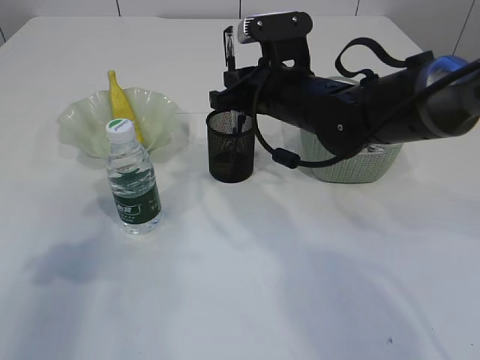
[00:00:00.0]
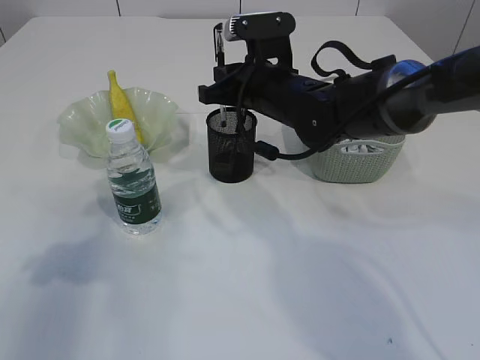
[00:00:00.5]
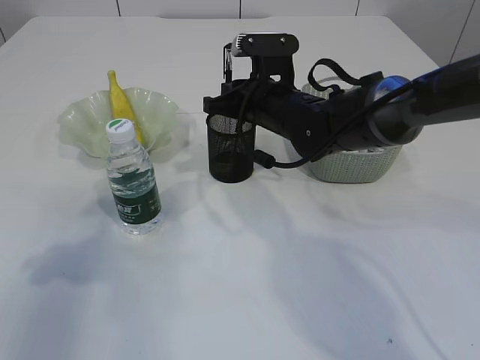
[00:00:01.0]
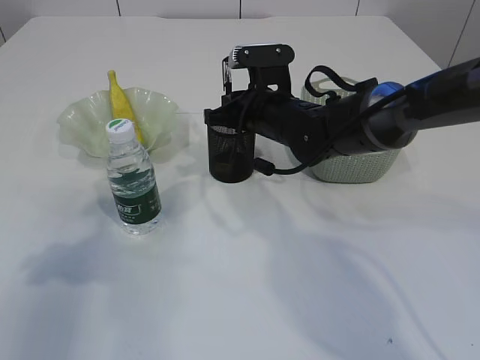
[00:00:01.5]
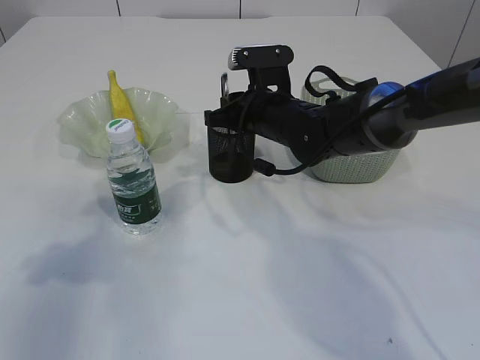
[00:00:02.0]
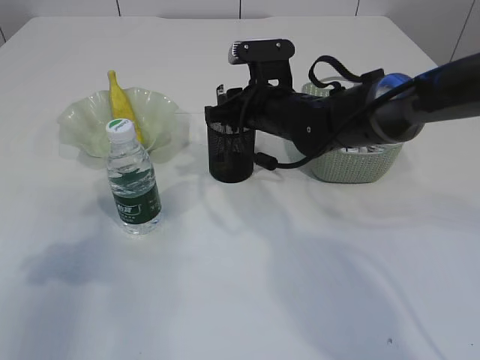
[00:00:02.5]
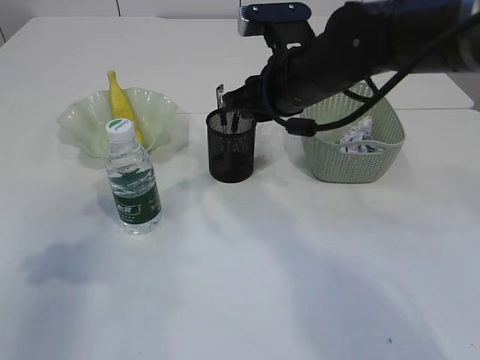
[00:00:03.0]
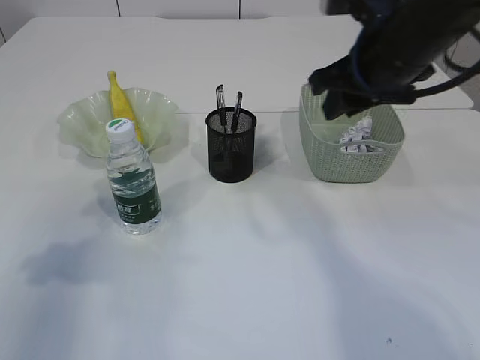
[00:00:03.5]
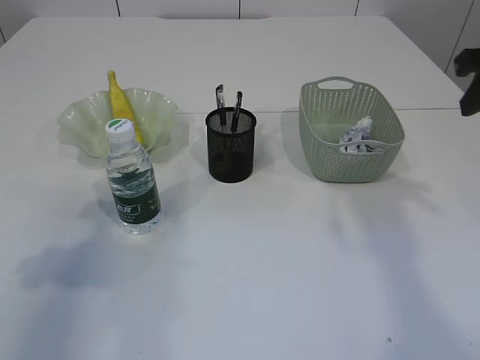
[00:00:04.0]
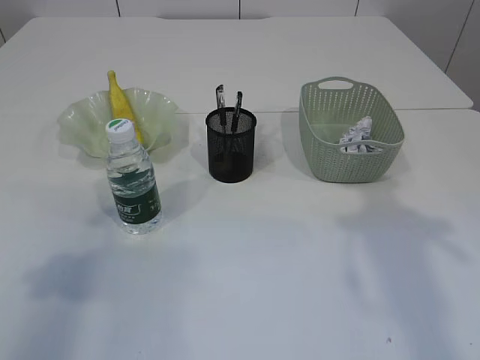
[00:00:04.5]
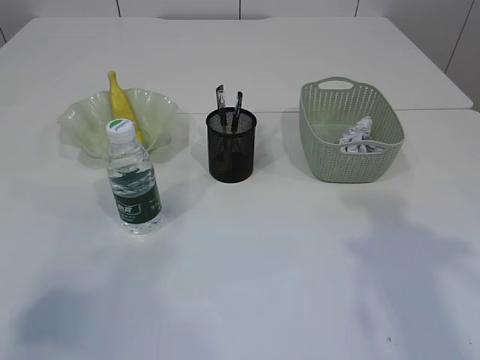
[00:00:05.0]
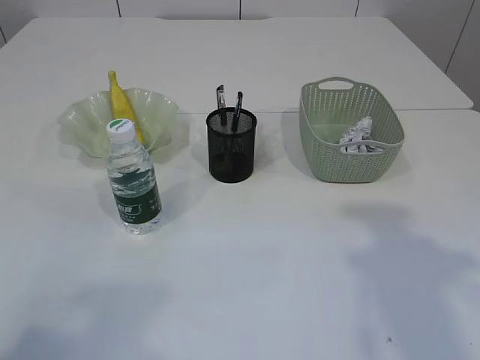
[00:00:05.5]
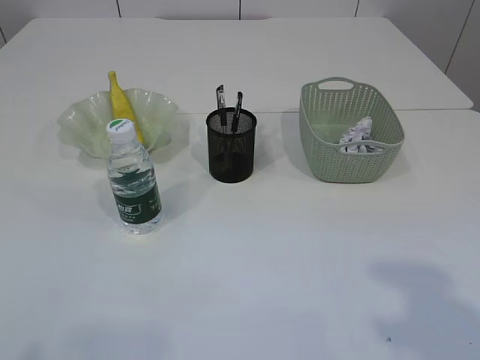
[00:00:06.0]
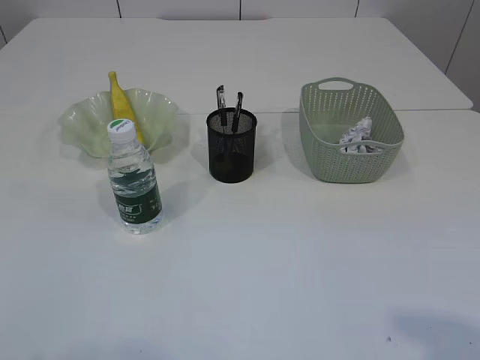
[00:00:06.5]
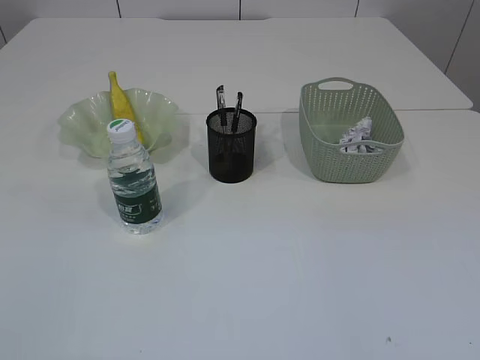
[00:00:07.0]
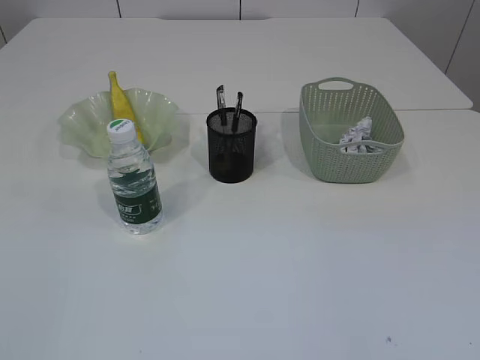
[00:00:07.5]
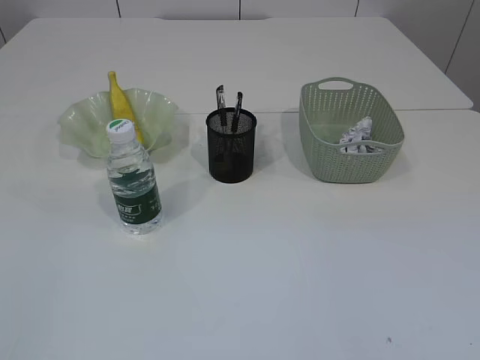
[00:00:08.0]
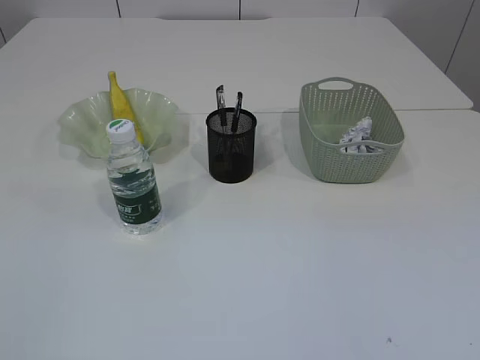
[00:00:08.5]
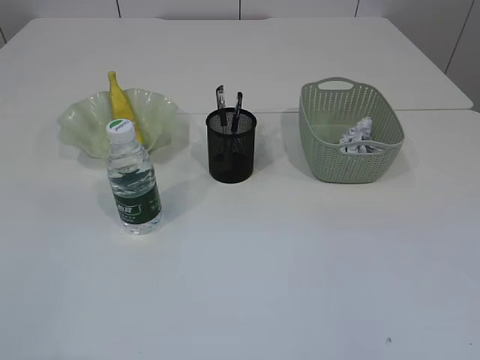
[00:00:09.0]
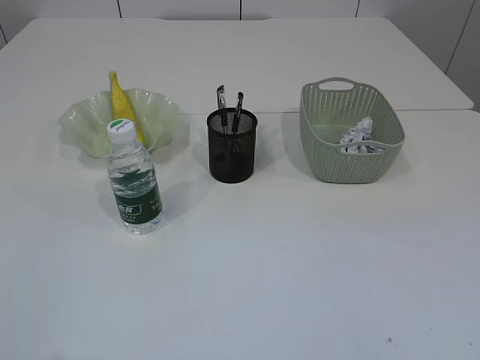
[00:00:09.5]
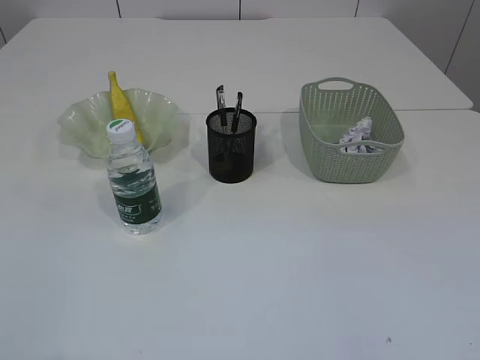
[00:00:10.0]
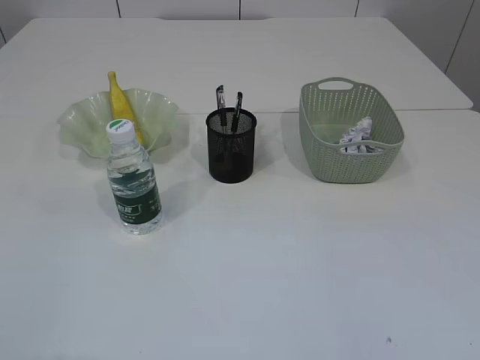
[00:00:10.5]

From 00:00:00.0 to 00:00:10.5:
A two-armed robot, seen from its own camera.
Step, from 00:00:00.0 to 00:00:03.0: Place the pen into the pen holder.
From 00:00:00.0 to 00:00:02.0: The right gripper ends up approximately 5 cm from where it was.
From 00:00:02.0 to 00:00:04.0: The right gripper heads to the right, upward and backward, covering roughly 30 cm.
From 00:00:04.0 to 00:00:06.5: The two grippers go approximately 25 cm backward.
From 00:00:08.5 to 00:00:10.5: Both grippers stay about where they are.
